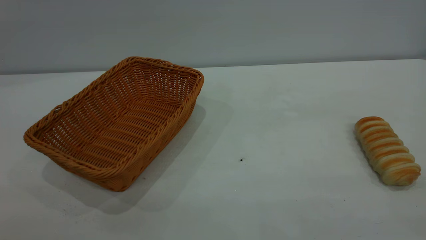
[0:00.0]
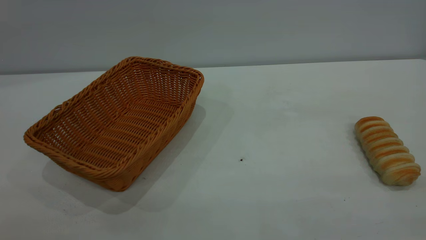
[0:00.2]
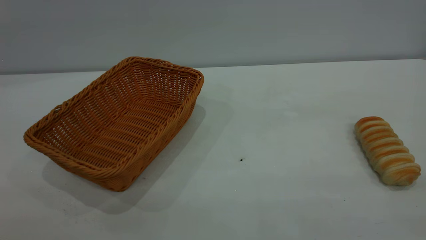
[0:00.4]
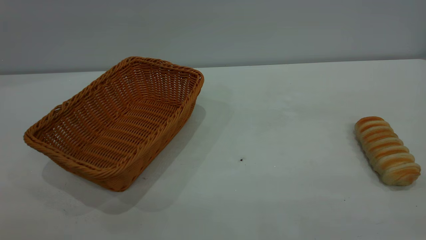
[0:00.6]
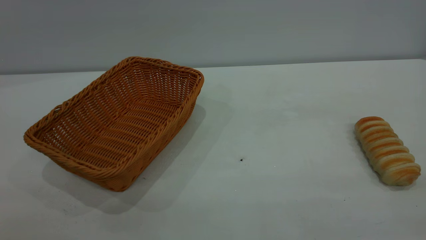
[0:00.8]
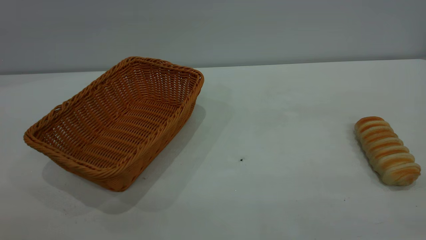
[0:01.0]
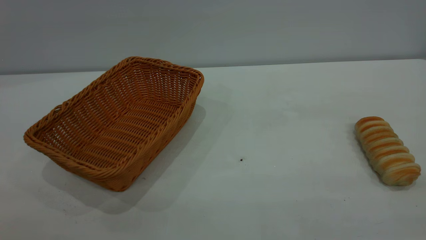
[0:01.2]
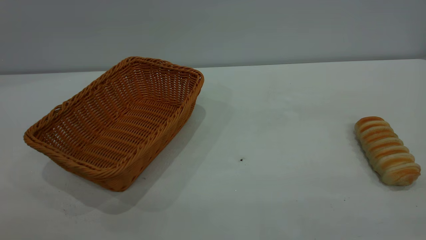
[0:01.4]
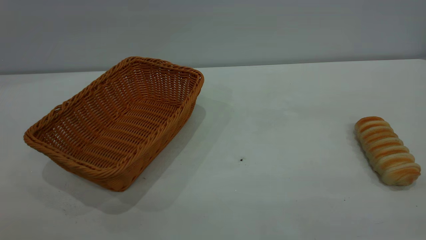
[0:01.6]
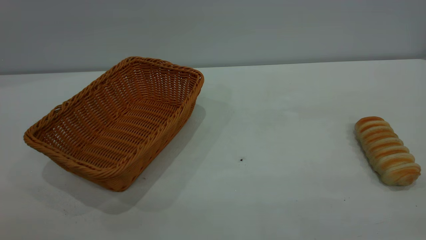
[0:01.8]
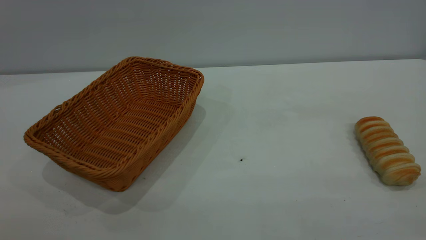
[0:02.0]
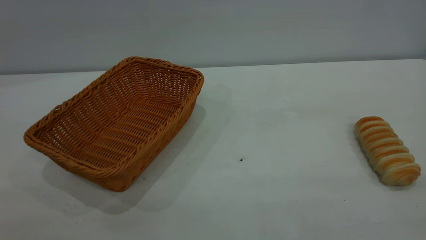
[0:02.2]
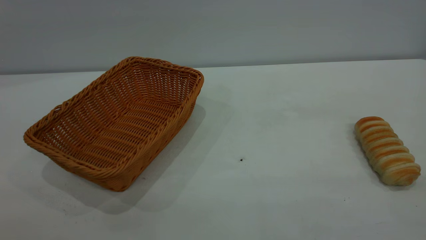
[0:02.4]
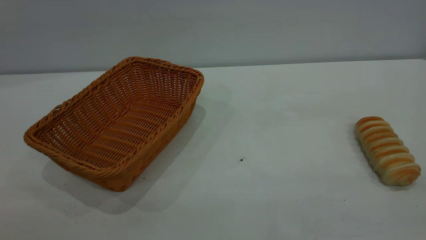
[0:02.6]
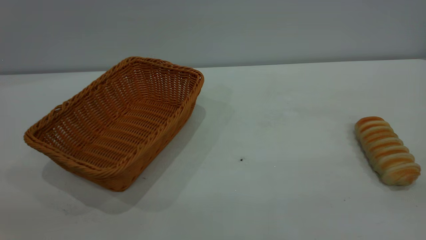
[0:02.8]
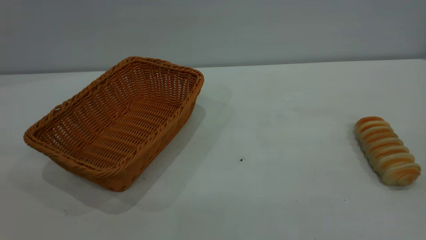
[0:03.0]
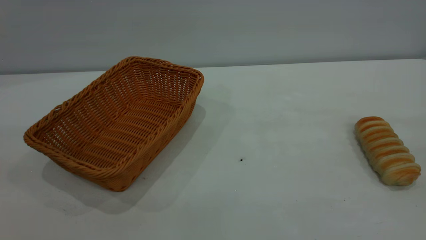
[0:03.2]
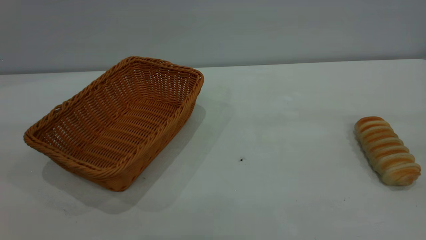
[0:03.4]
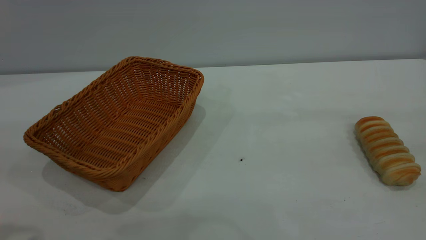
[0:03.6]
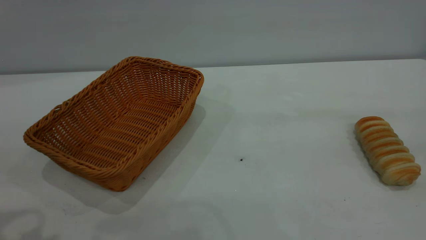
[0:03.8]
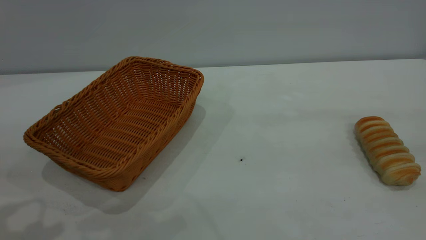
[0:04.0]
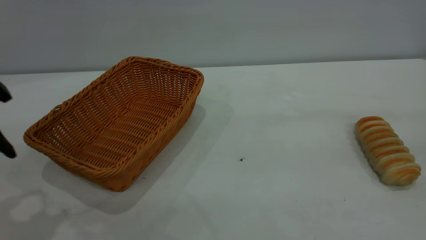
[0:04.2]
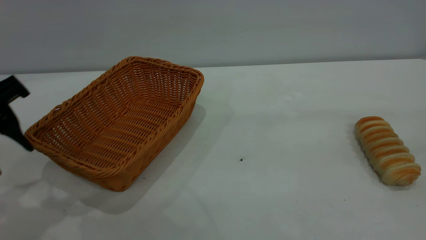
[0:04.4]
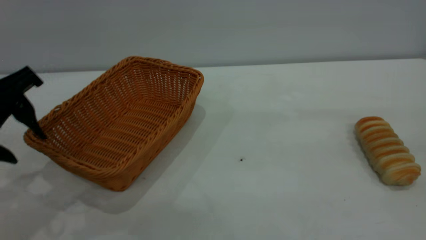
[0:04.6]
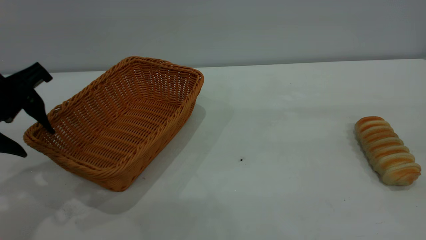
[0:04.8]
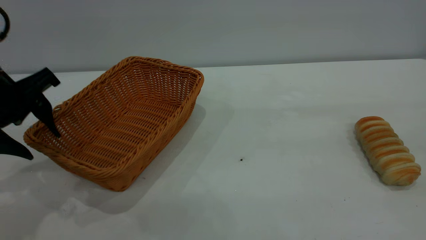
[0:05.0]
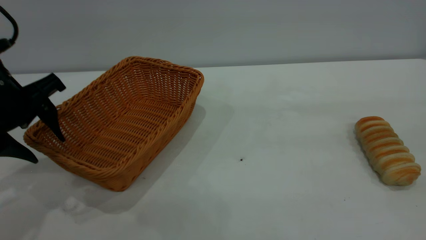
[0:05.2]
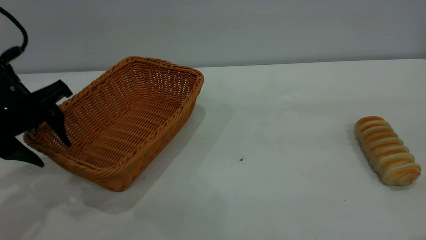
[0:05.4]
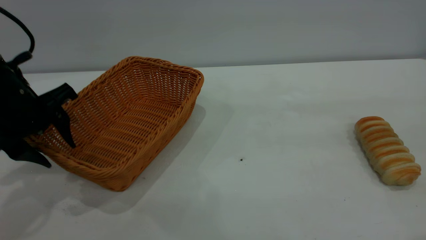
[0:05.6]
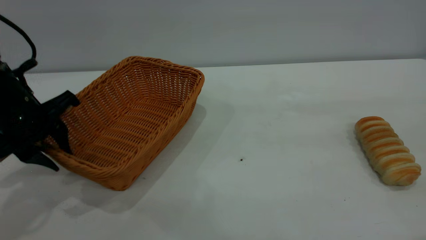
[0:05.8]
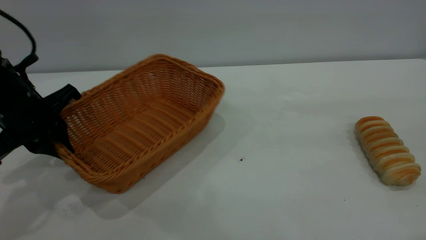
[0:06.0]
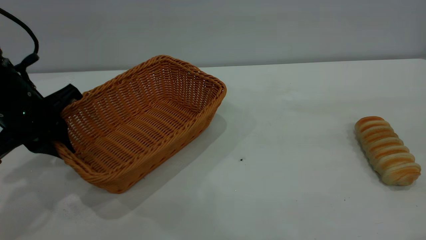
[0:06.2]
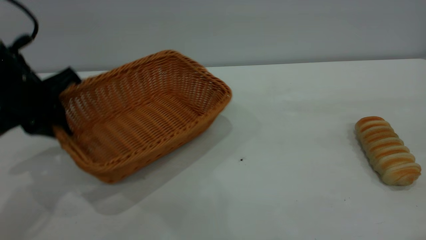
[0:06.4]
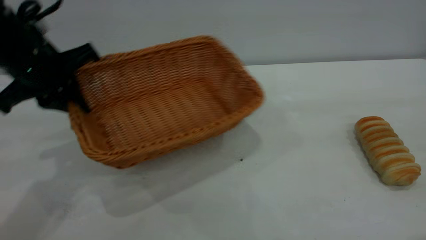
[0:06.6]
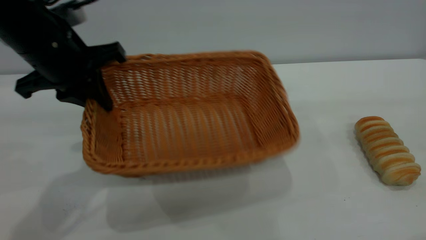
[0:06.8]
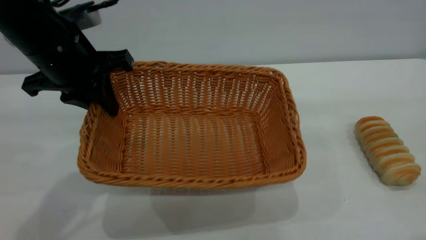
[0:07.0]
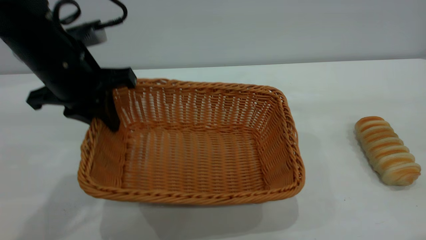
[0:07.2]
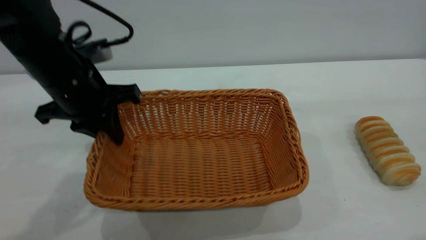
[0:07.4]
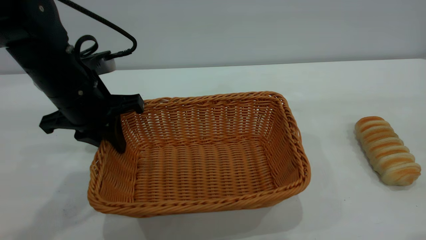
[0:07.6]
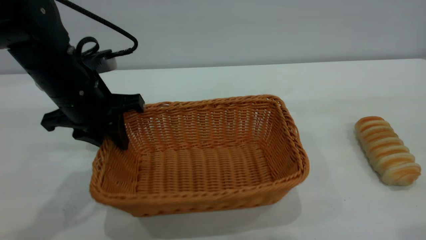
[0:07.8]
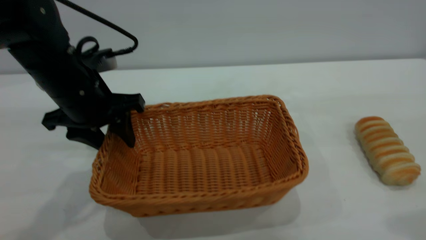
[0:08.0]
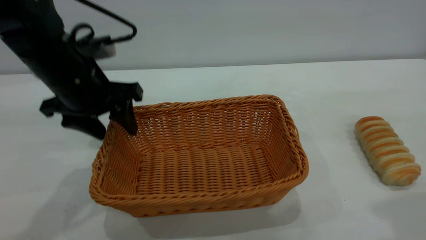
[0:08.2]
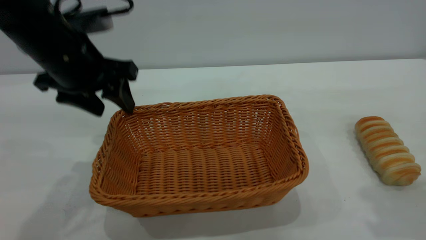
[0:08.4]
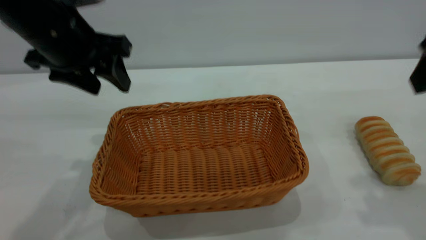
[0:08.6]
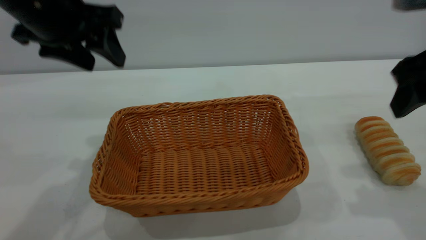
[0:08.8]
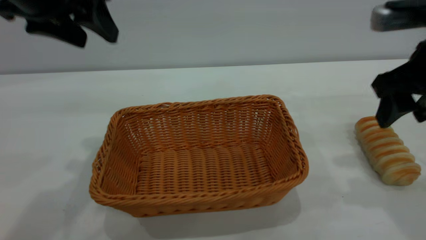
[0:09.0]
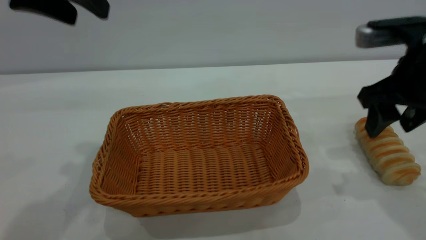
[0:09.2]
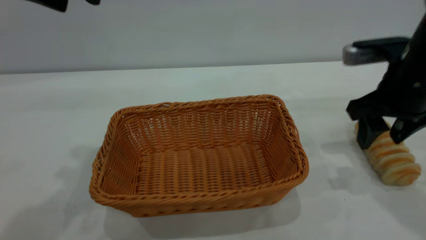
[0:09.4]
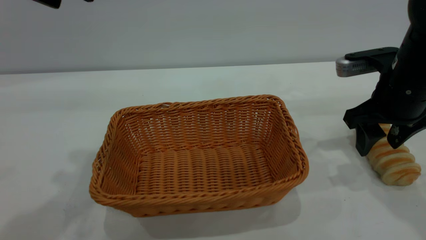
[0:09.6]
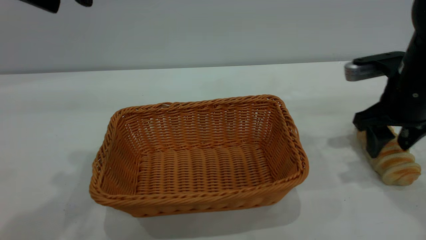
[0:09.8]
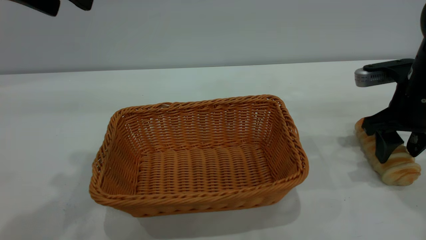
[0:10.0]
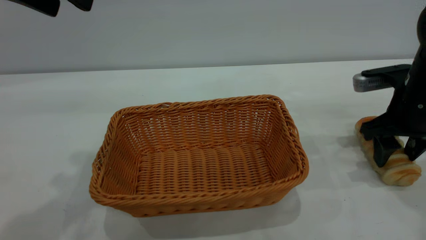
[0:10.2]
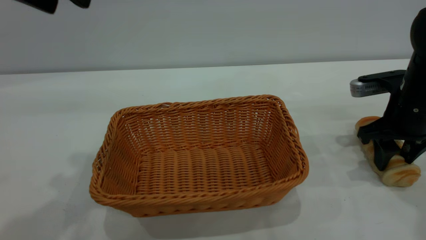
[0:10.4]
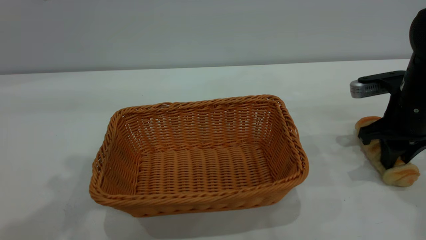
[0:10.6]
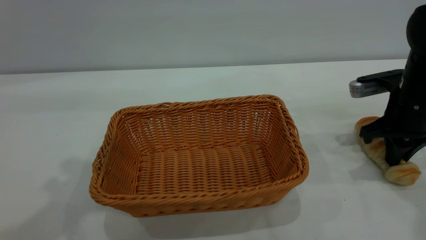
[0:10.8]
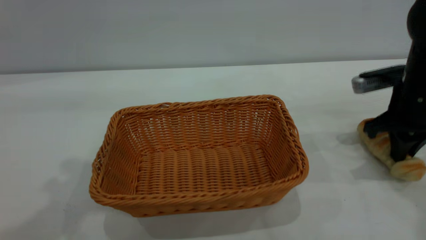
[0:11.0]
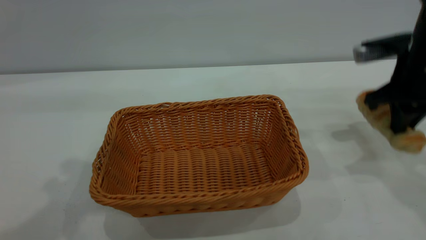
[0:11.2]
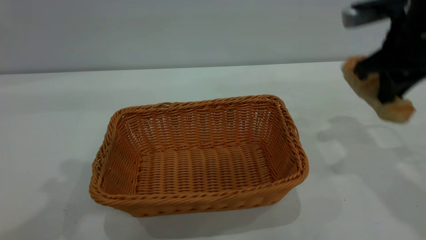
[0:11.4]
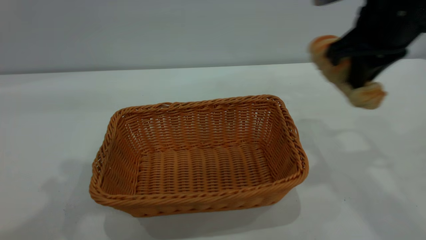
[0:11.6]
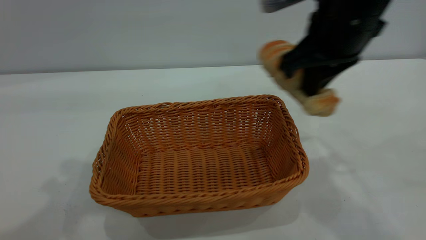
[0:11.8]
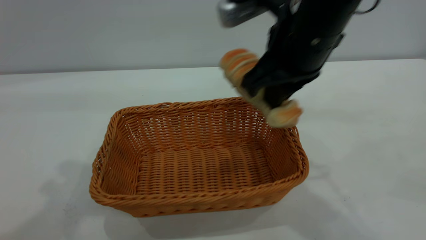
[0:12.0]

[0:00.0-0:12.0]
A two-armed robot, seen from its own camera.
Task of the whole recording: One hand grasps the yellow basket and places it in the middle of the table, while the other hand picks up the long bread and puts it into the yellow basket.
Step, 0:00.0 to 0:08.6: Move the basket to the center of view.
0:00.0 to 0:01.6: Both grippers stay put.
0:03.0 to 0:04.4: The left gripper is displaced forward and downward by approximately 25 cm.
0:04.4 to 0:06.0: The left gripper heads forward and downward, covering roughly 10 cm, and closes up.
0:06.0 to 0:07.6: The left gripper is displaced to the right by approximately 10 cm.
0:07.6 to 0:09.0: The left gripper goes some 15 cm upward, and opens up. The right gripper shifts about 20 cm downward and forward, and opens its fingers.
0:09.0 to 0:10.4: The right gripper goes about 10 cm downward and forward; the left gripper goes some 5 cm upward.
0:10.4 to 0:12.0: The right gripper travels to the left and upward by about 20 cm, and closes up.

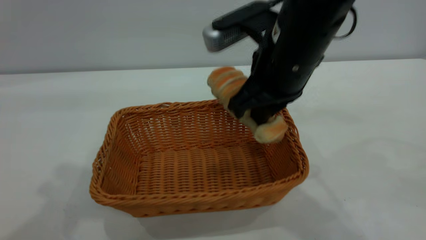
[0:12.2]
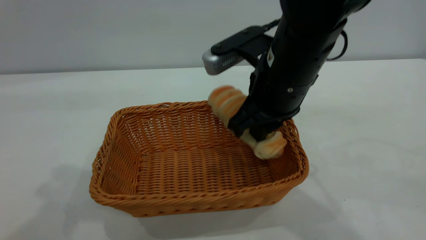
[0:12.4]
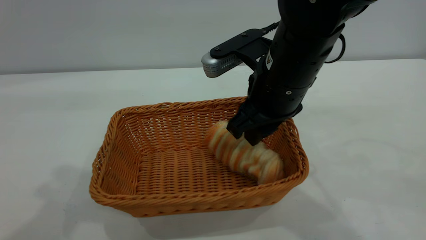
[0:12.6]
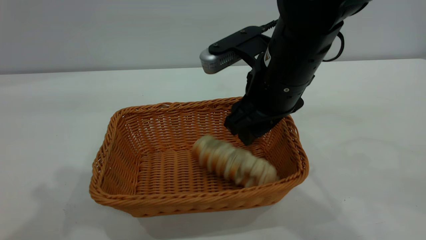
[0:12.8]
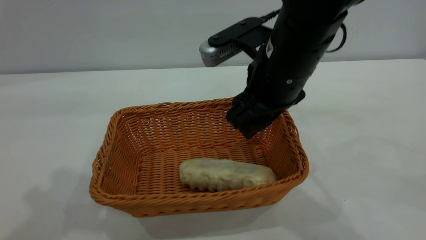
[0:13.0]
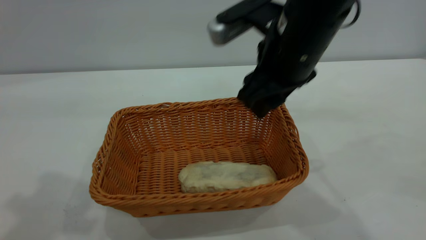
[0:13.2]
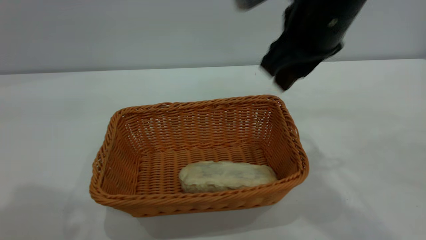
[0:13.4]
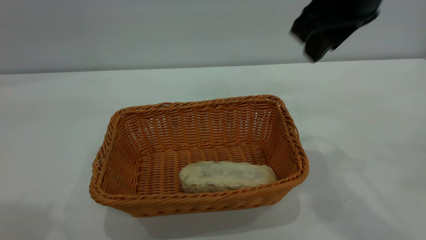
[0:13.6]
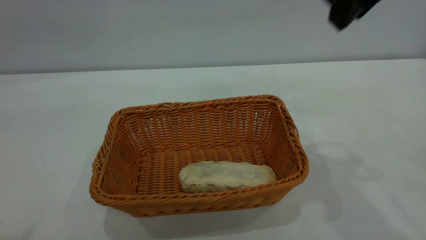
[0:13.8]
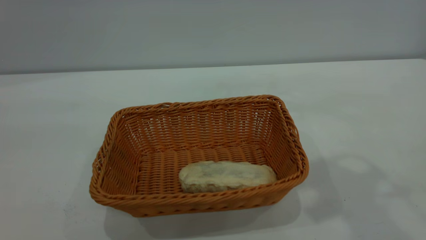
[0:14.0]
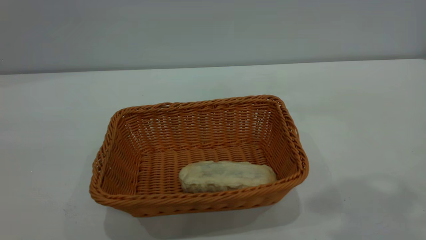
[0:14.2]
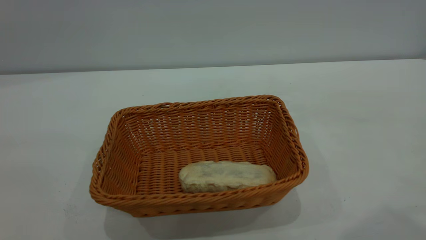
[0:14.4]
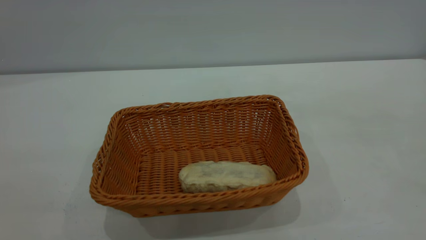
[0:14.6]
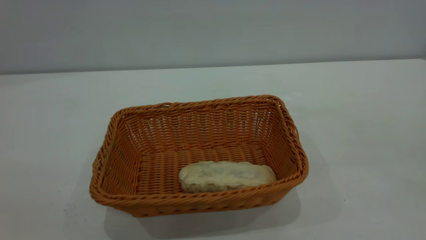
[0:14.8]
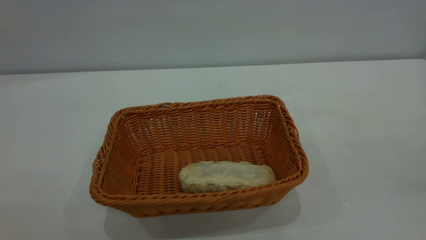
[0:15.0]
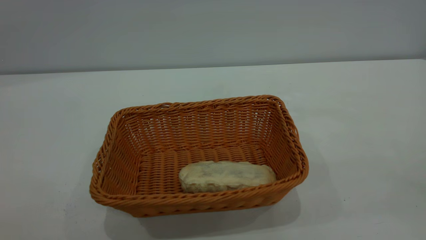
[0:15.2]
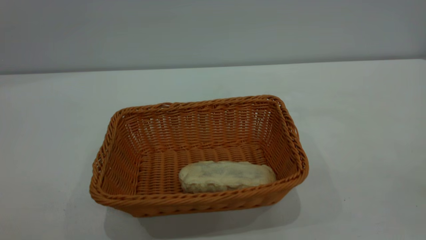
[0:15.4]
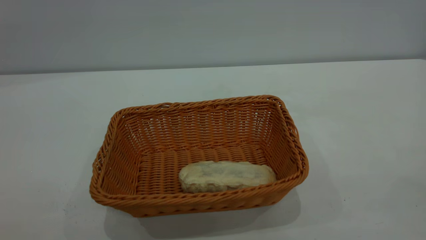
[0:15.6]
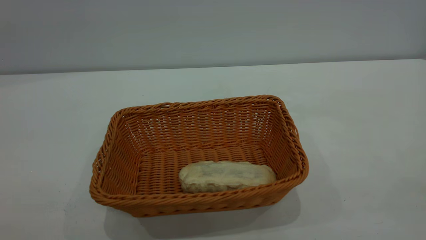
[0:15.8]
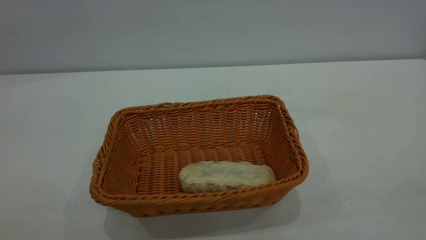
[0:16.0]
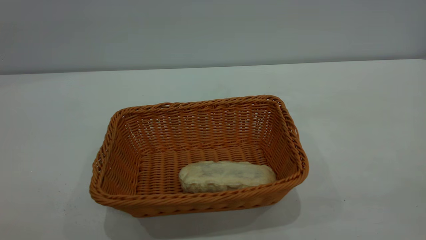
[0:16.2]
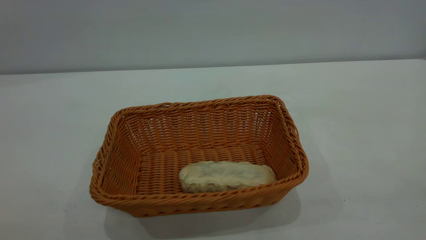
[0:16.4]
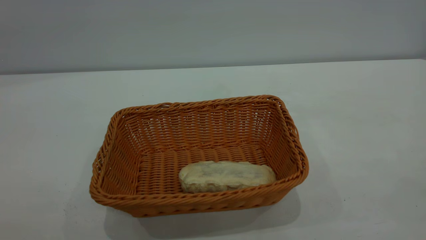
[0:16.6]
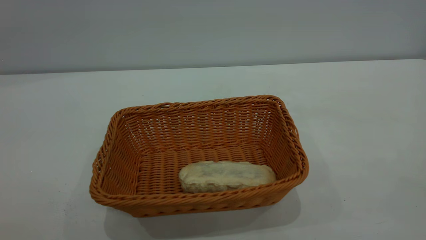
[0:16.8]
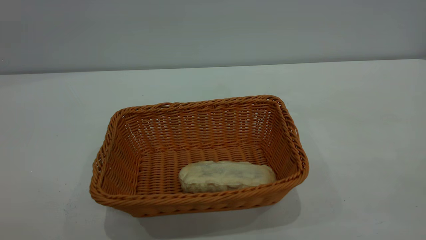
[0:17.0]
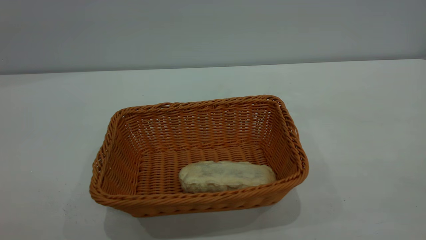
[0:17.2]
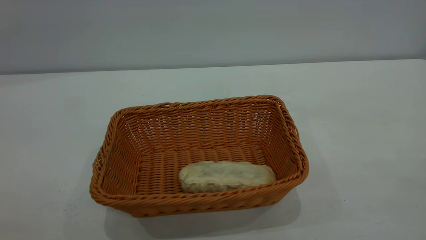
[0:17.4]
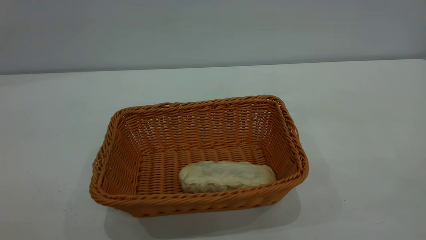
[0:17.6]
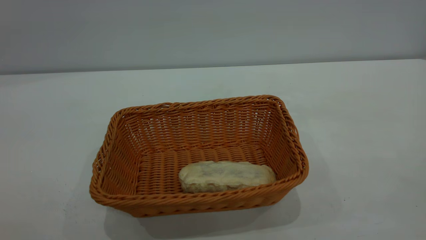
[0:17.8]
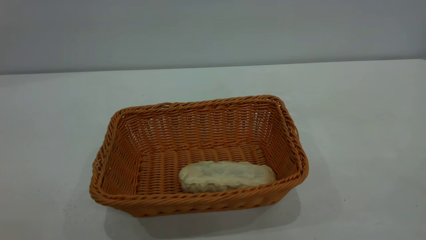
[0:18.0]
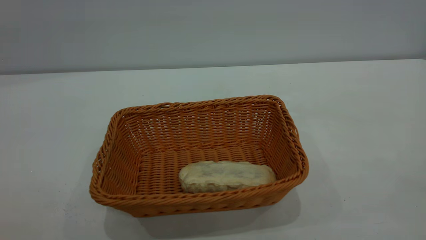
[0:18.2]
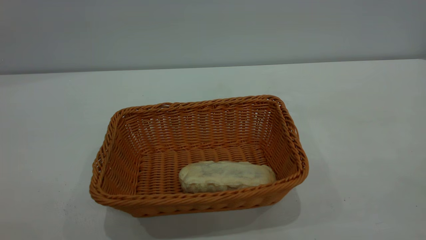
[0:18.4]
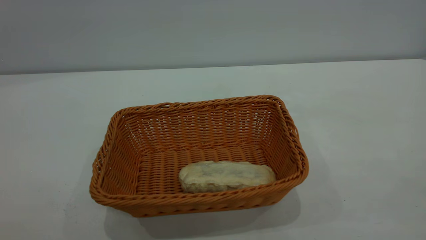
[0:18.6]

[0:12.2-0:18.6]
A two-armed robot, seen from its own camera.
Task of the whole recording: One hand grasps the yellow basket and places it in the middle of the table, while the other hand picks up the long bread and puts it into the yellow basket.
Step, 0:12.2 to 0:13.4: place the bread into the basket.
0:12.2 to 0:13.8: The left gripper heads backward and to the left, covering some 10 cm. The right gripper travels upward and to the right by approximately 15 cm, and opens up.
0:13.8 to 0:15.4: The right gripper moves backward and to the right, approximately 35 cm.
0:17.0 to 0:18.6: Both grippers stay about where they are.
